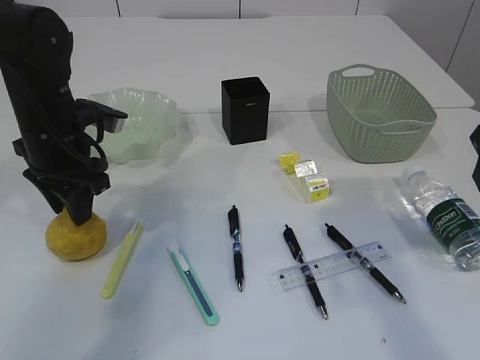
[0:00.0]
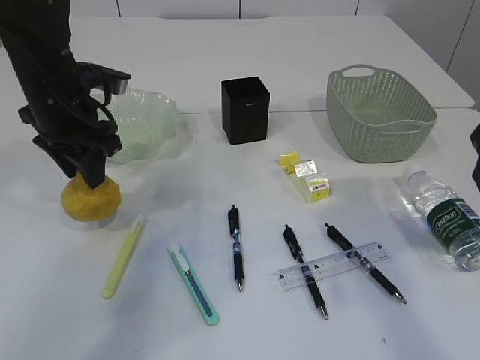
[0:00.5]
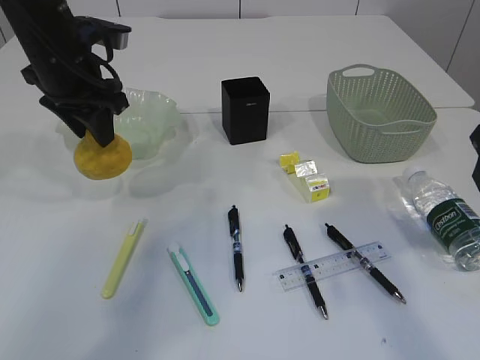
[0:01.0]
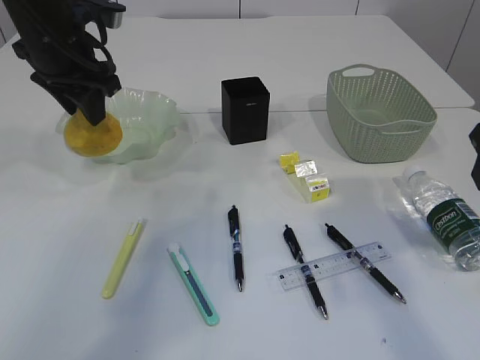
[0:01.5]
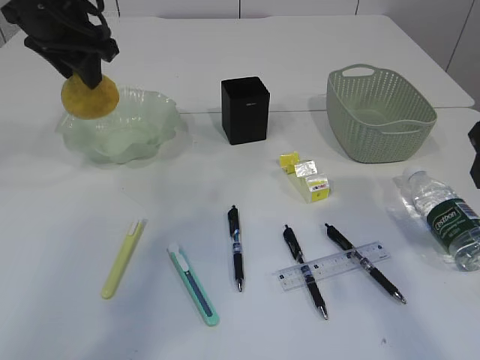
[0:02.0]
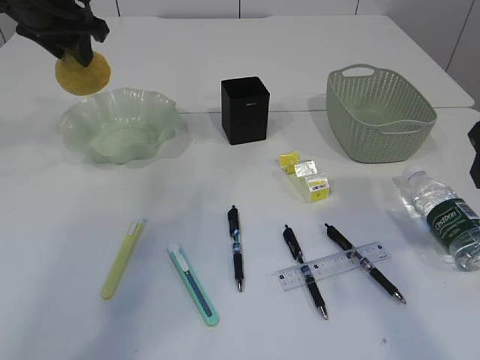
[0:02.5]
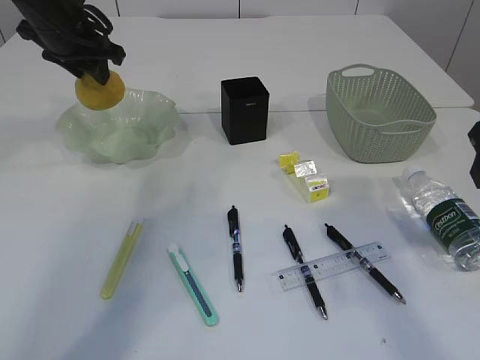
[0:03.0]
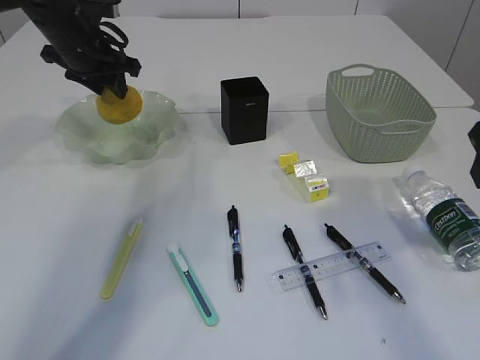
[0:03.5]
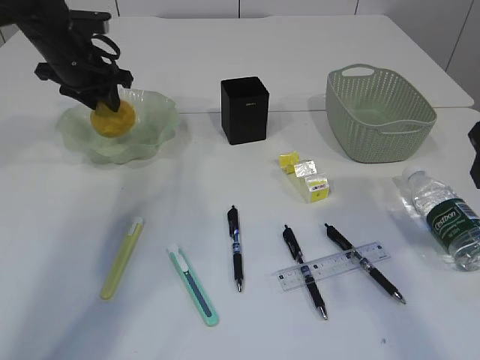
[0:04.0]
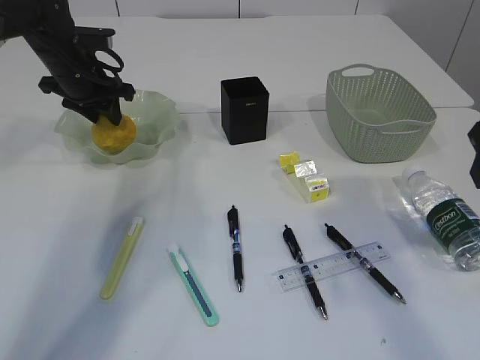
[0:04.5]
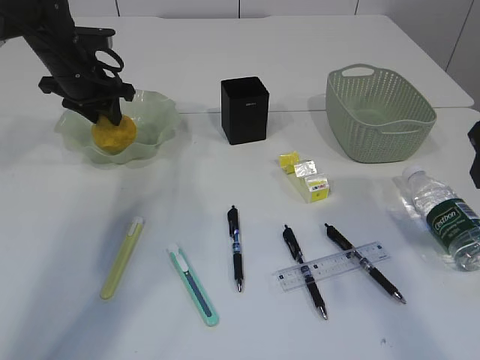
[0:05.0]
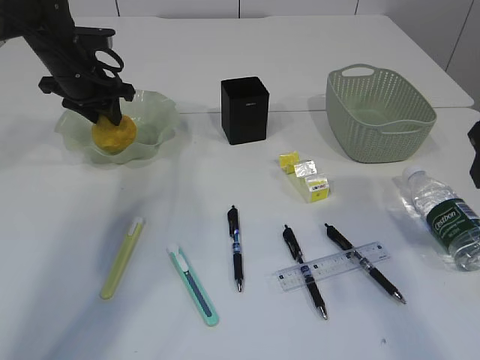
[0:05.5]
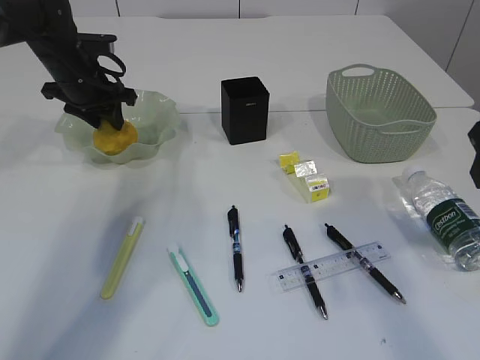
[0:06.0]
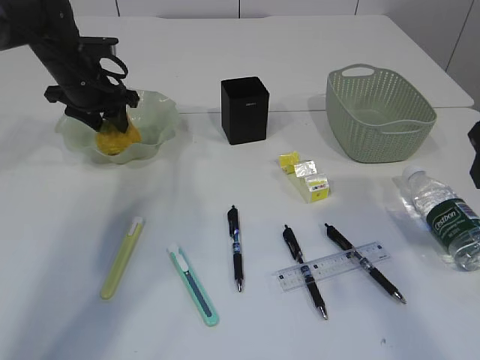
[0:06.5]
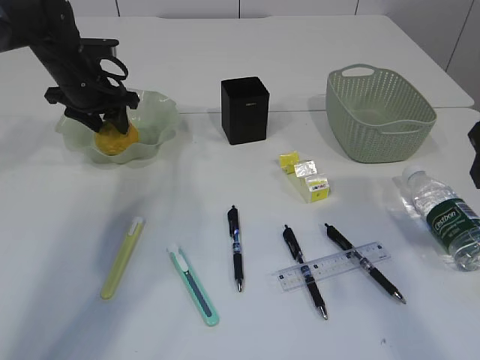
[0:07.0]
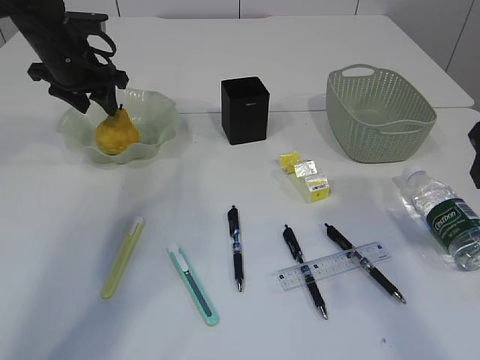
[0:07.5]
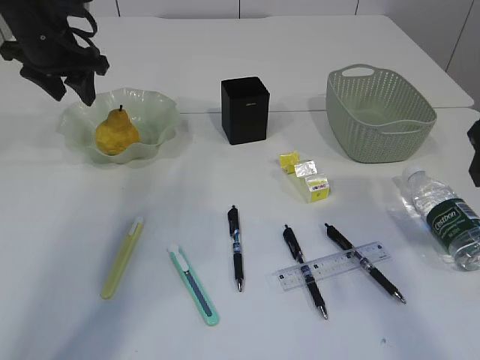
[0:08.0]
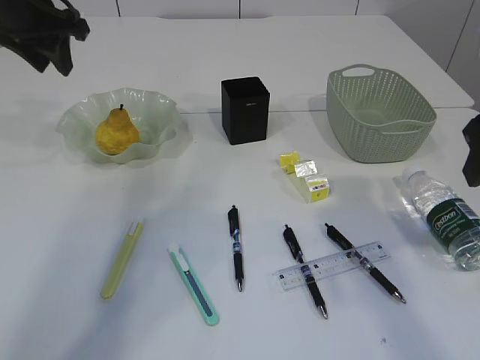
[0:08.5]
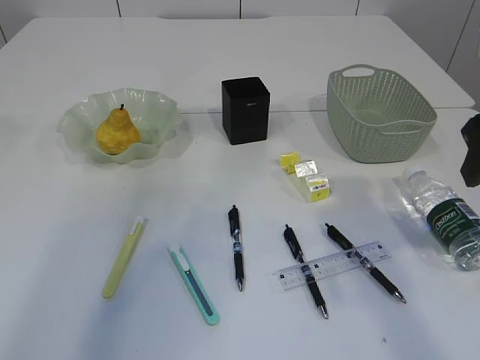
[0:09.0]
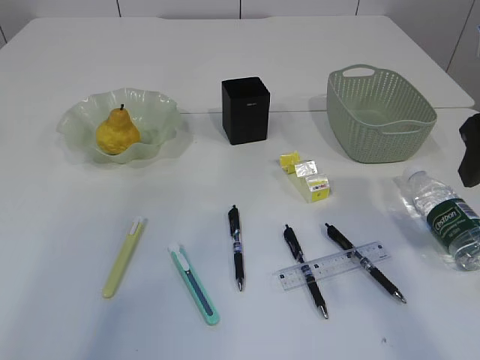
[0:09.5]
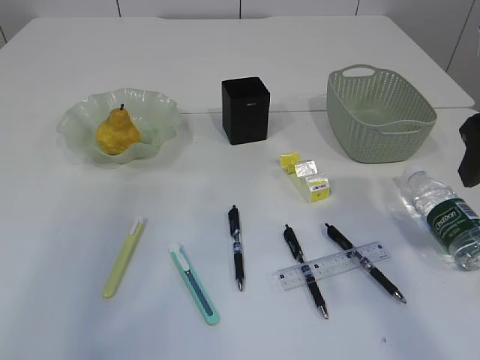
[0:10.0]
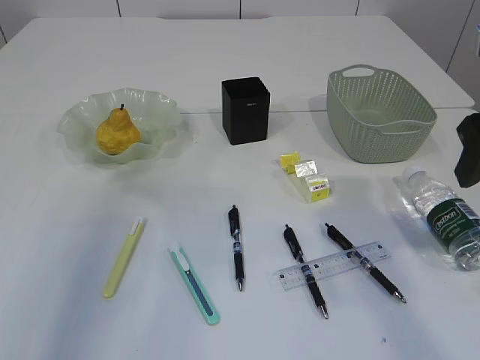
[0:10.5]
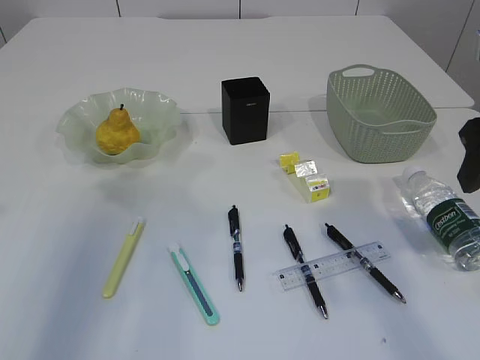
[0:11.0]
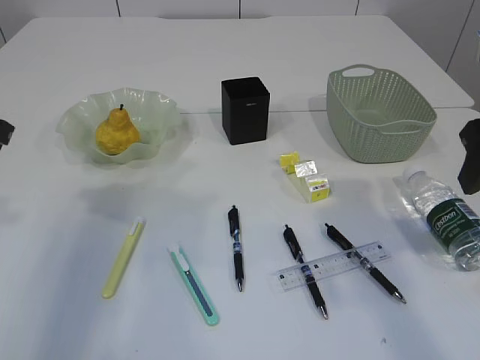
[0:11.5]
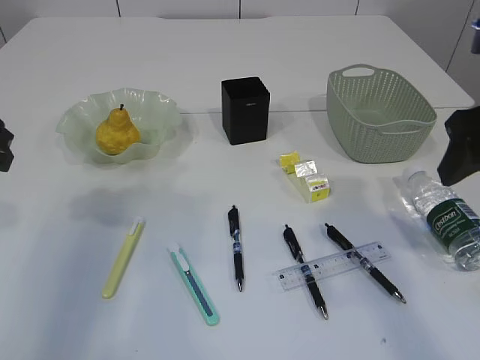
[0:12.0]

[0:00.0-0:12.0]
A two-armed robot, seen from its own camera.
Step, 0:02.0 to 0:08.5: Place the pear in the plate.
0:00.0 to 0:02.0: The left gripper is displaced upward and forward by some 15 cm.
0:02.0 to 0:04.0: The left gripper heads downward and forward, covering roughly 15 cm.
0:04.0 to 0:06.0: There are only small adjustments of the grippers.
0:06.0 to 0:08.0: The left gripper is displaced upward by roughly 5 cm.
0:08.0 to 0:10.0: The left gripper heads backward and upward, covering about 20 cm.

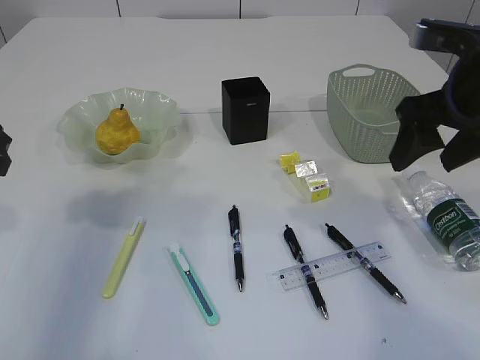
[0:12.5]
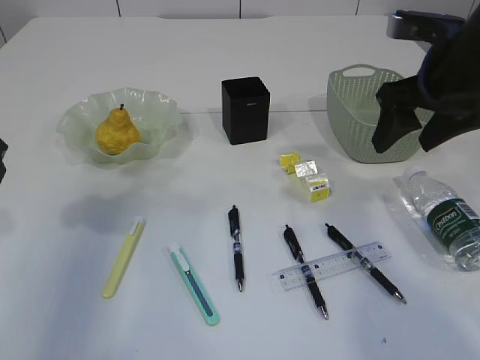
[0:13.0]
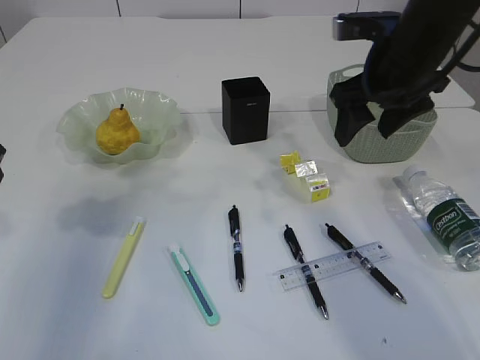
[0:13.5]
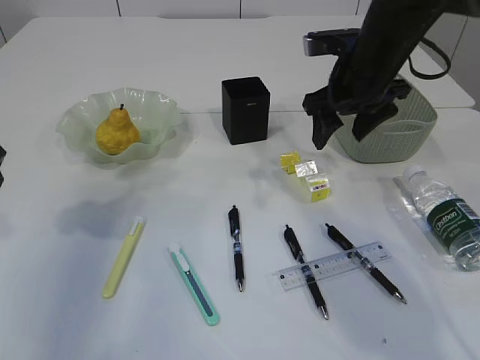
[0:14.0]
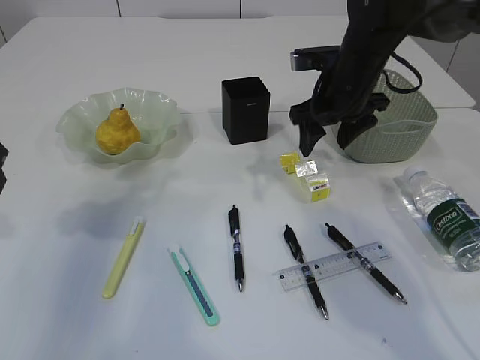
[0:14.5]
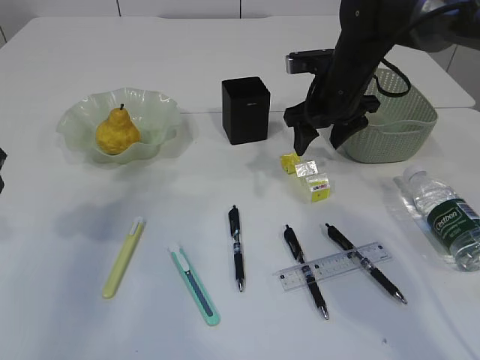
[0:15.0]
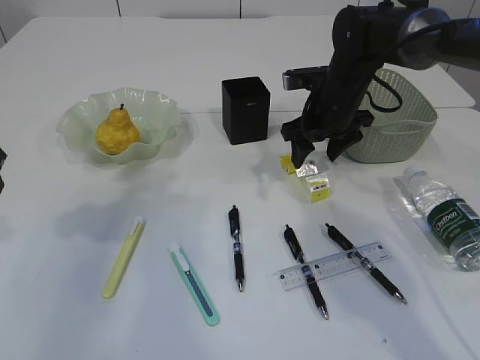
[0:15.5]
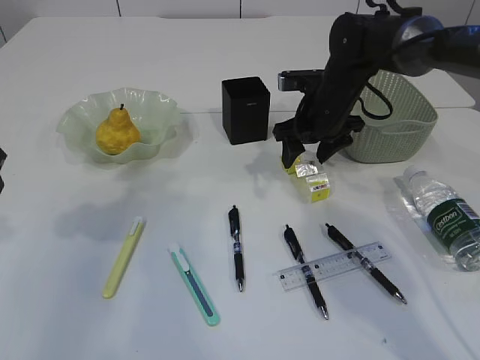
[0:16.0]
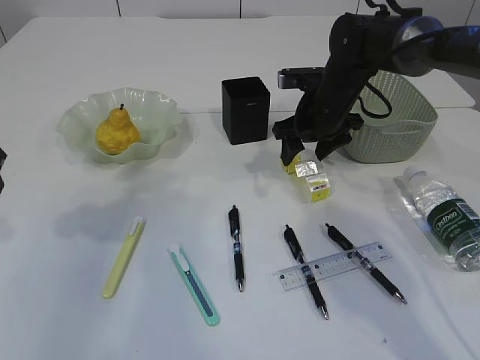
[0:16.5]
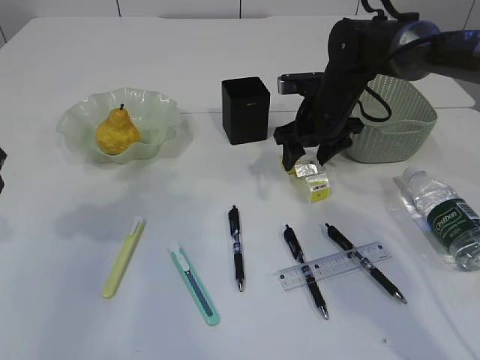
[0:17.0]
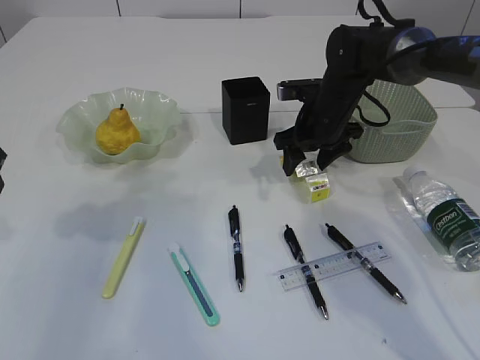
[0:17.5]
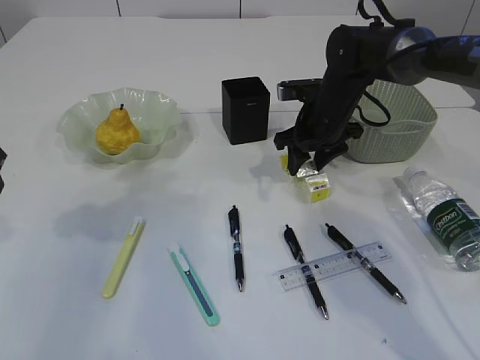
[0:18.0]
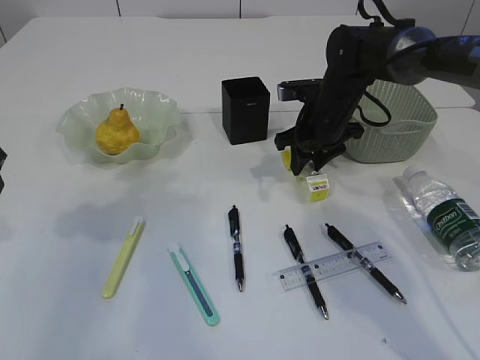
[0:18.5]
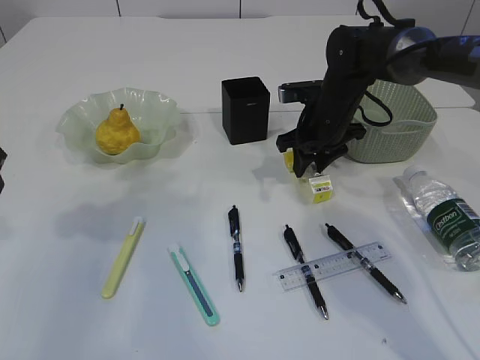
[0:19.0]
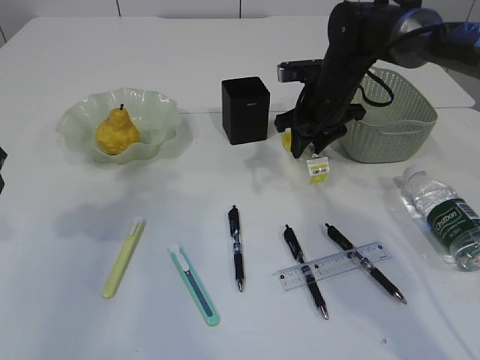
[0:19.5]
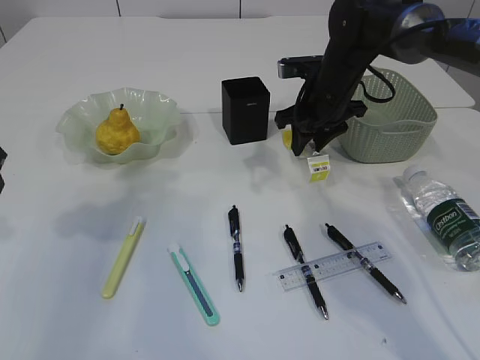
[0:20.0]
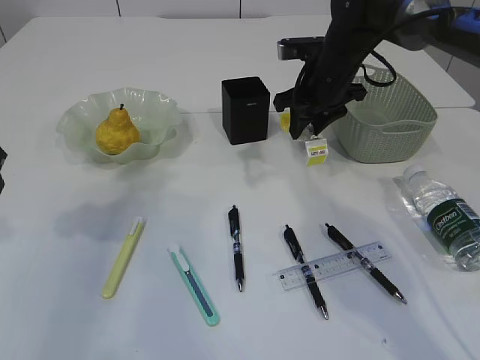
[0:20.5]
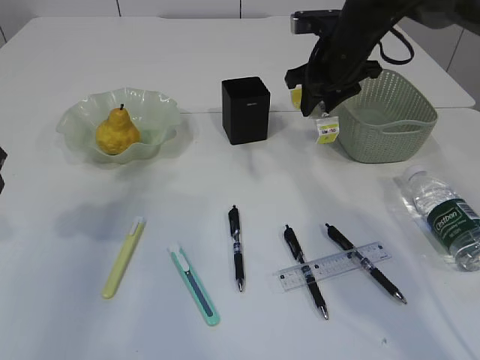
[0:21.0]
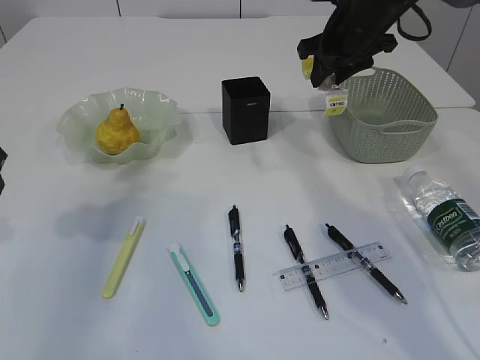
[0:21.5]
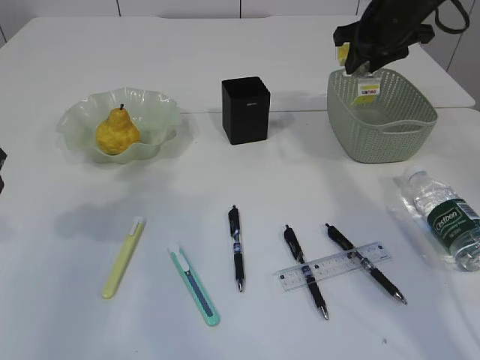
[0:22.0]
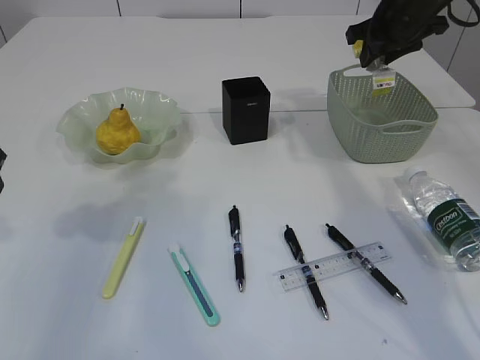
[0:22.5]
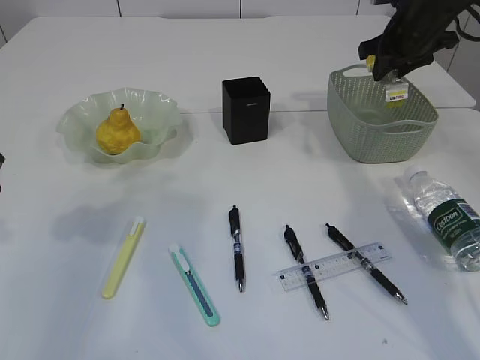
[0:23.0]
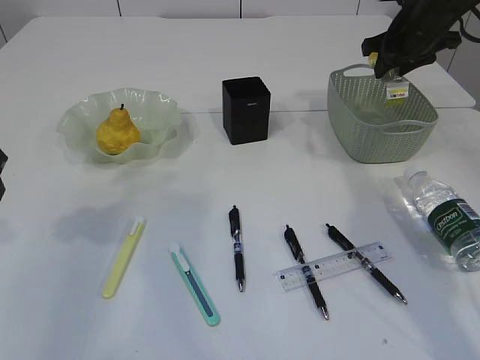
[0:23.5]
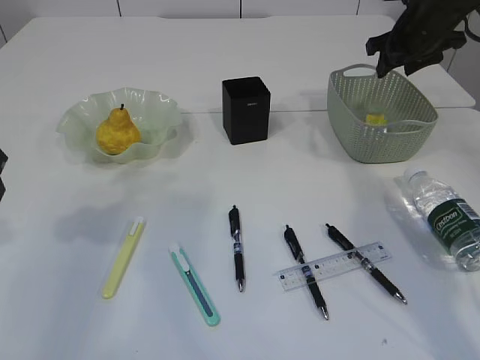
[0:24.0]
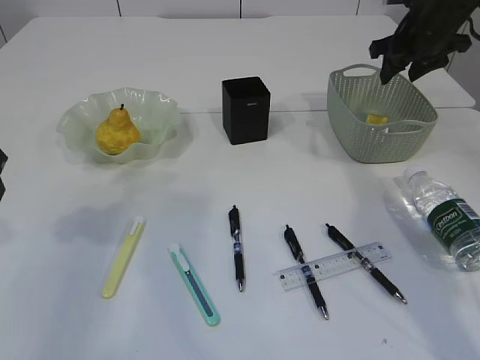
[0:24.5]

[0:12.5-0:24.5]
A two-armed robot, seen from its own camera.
Step, 0:12.5 to 0:20.5: Pick up the waste paper.
0:12.5 to 0:14.5: The right gripper heads forward, downward and to the left, covering approximately 20 cm.
0:14.5 to 0:16.5: The right gripper changes place by roughly 5 cm.
0:16.5 to 0:18.5: The right gripper closes its fingers.
0:18.5 to 0:20.5: The right gripper travels upward by about 5 cm.
0:20.5 to 0:22.5: The right gripper is displaced to the right and upward by about 15 cm.
0:22.5 to 0:24.5: There are only small adjustments of the grippers.

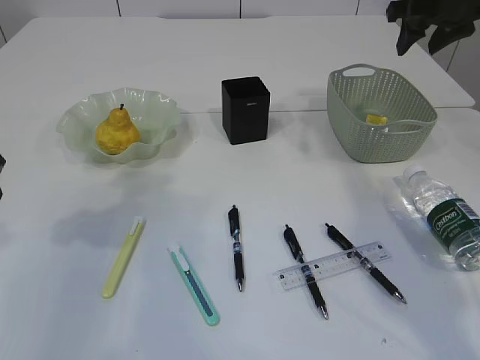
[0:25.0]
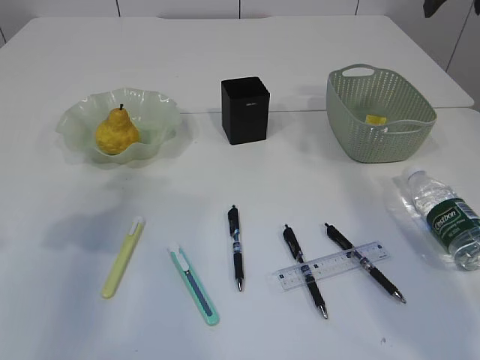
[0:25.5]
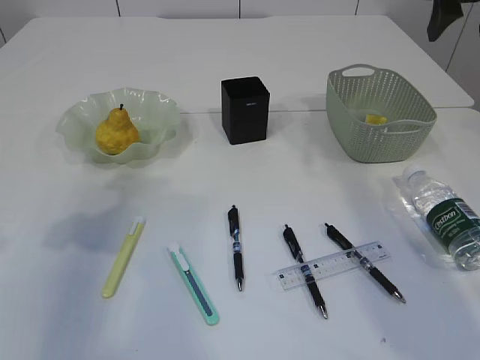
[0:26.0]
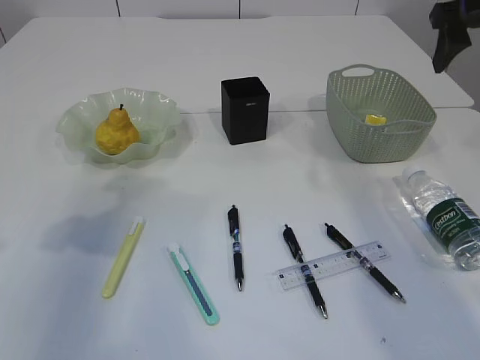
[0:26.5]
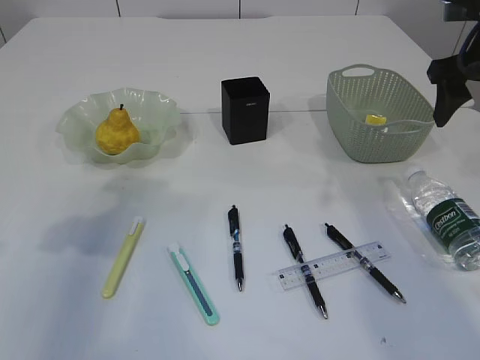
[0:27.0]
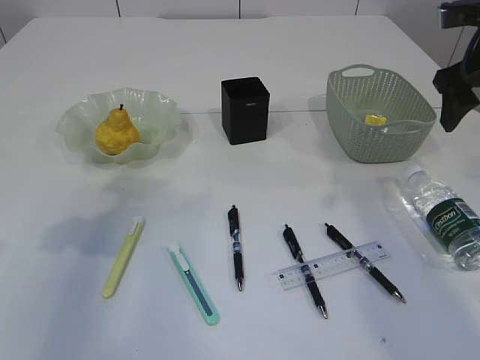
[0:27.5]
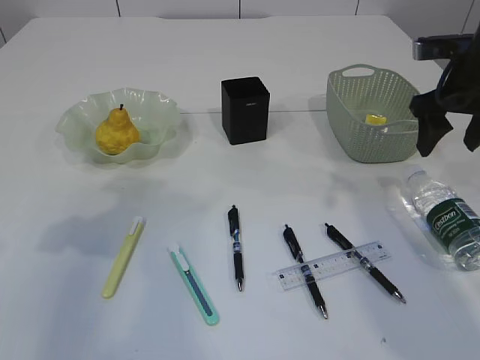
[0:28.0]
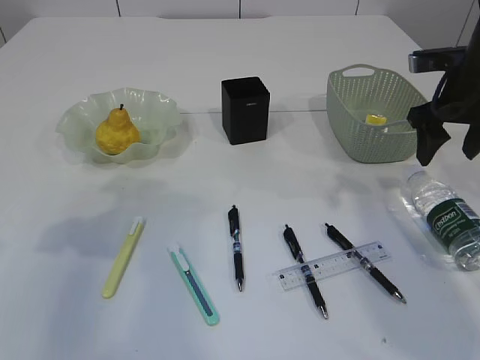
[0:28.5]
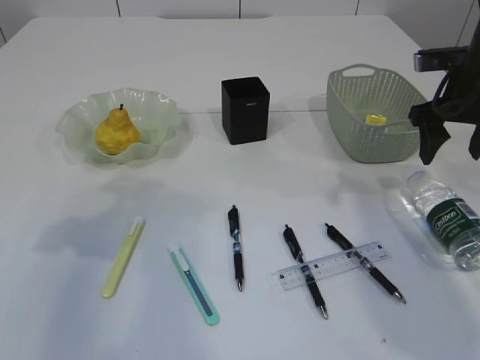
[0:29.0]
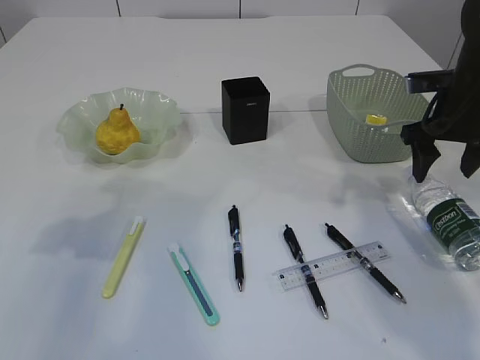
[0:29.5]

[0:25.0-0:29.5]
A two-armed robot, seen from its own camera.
0:25.0 to 0:27.0: The right gripper travels backward by roughly 10 cm.
0:27.0 to 0:29.5: The right gripper travels downward by some 10 cm.
